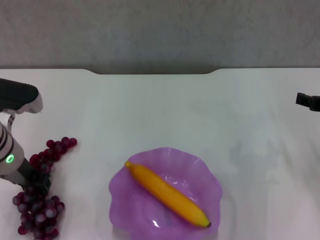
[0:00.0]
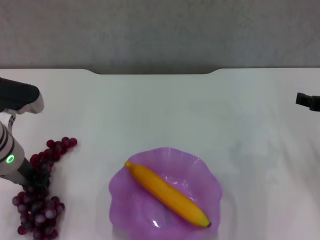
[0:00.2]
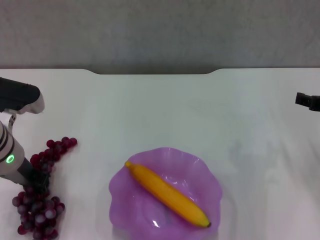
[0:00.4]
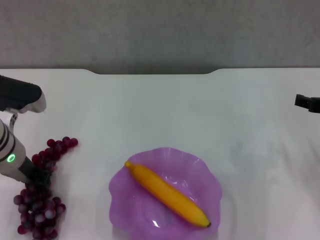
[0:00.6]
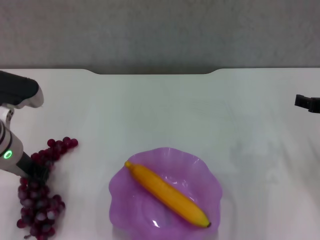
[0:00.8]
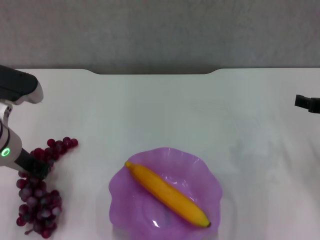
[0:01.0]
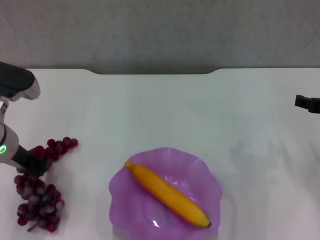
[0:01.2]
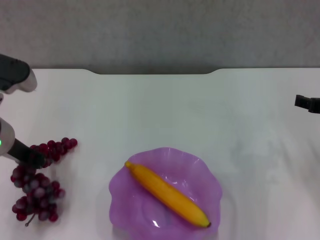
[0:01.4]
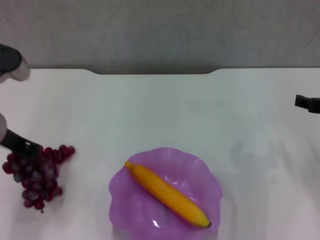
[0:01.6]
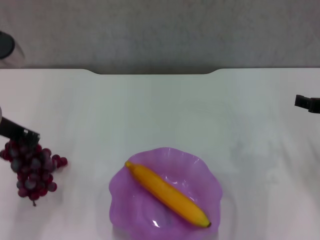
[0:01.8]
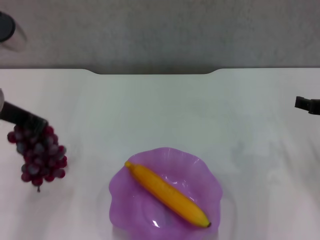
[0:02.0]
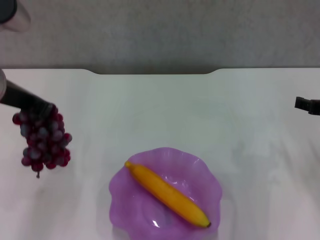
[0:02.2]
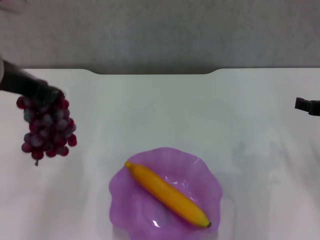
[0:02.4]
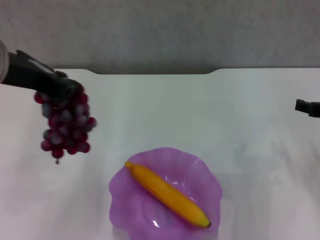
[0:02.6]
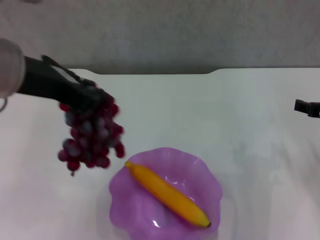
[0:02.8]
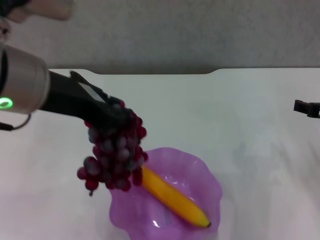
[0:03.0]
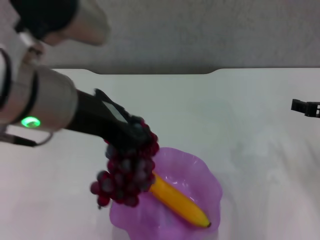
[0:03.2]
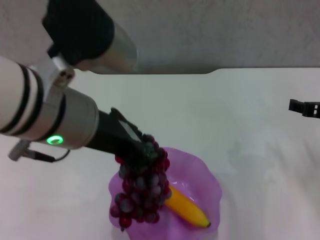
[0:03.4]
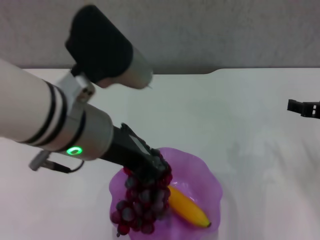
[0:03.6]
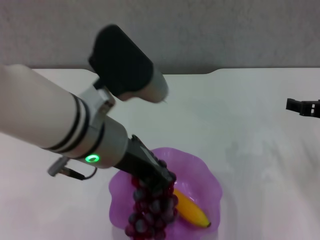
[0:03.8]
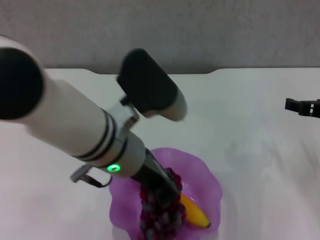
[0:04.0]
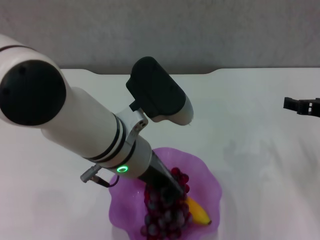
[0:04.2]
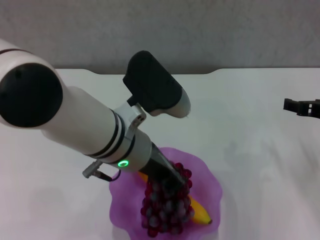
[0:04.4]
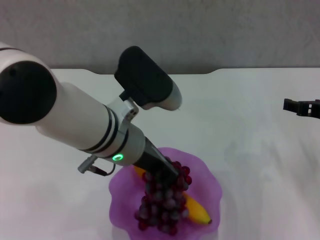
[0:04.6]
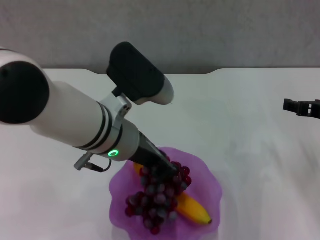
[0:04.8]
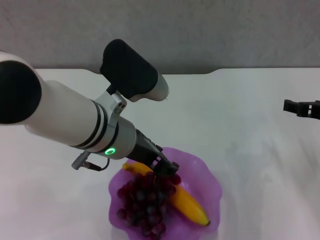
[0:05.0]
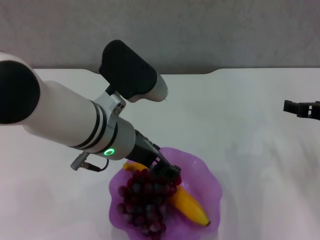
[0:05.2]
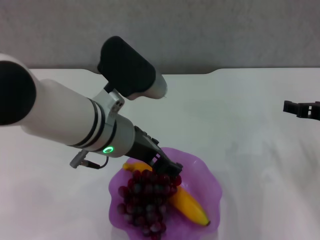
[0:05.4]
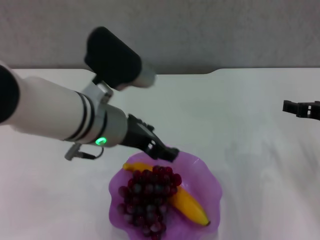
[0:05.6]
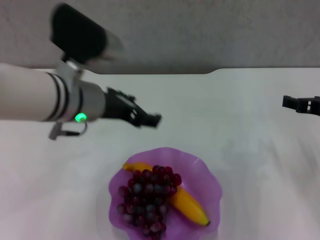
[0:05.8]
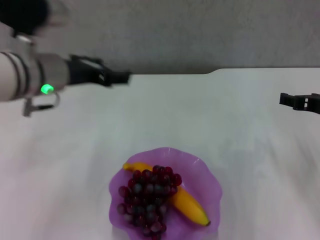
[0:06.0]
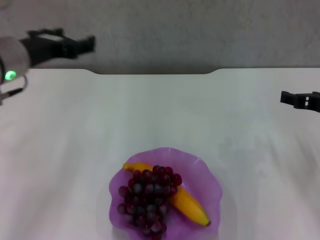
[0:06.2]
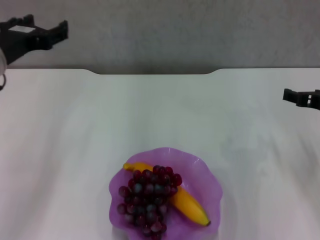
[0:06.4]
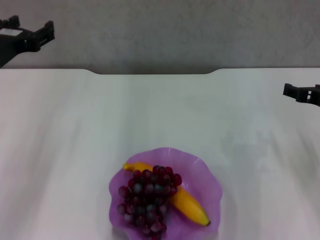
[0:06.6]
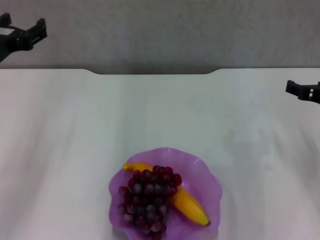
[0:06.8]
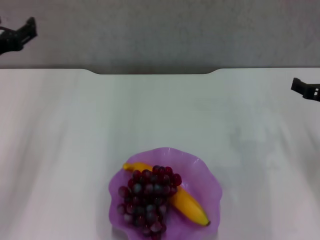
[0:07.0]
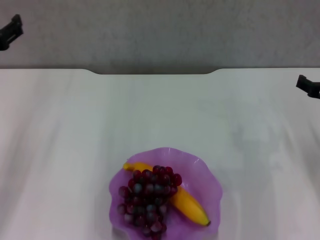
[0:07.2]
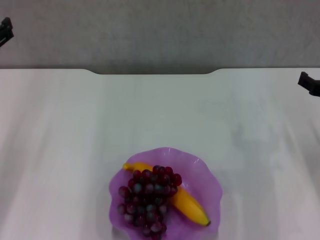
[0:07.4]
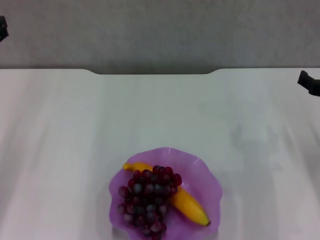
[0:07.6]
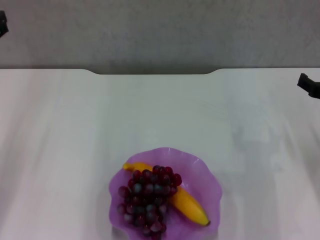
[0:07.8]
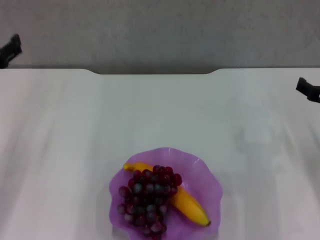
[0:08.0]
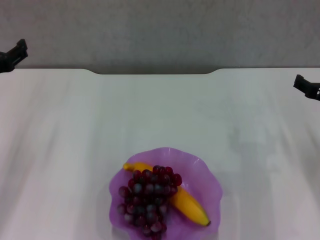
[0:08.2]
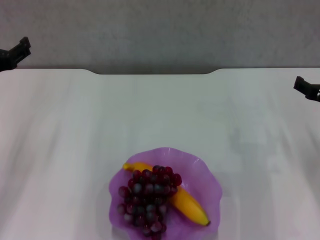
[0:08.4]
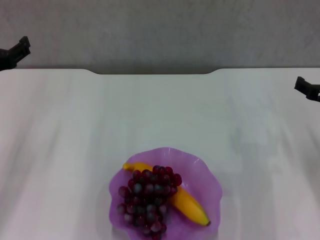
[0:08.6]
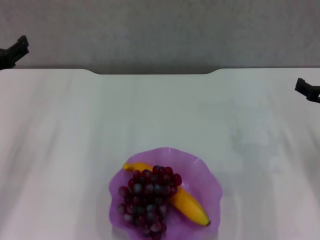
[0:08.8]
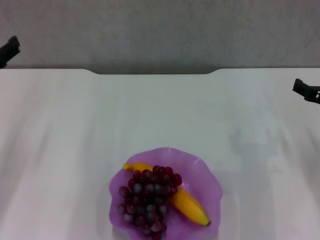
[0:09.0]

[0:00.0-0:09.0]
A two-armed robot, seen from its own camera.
Step, 0:00.2 to 0:05.0: Place the grape in the purple plate with left gripper.
0:00.0 to 0:01.6: The left gripper travels upward by about 5 cm, and closes.
0:01.6 to 0:03.0: The left gripper travels upward, to the right and backward by roughly 15 cm.
0:03.0 to 0:04.4: The left gripper goes some 15 cm downward and to the right.
0:04.4 to 0:06.0: The left gripper heads to the left and forward, covering roughly 15 cm, and opens up.
0:06.0 to 0:07.6: The left gripper shifts approximately 15 cm to the left.
0:07.6 to 0:09.0: The grippers make only small movements.

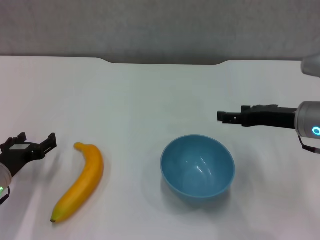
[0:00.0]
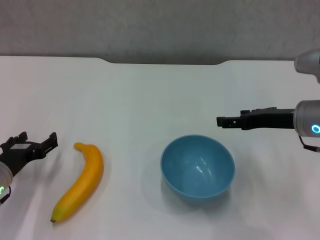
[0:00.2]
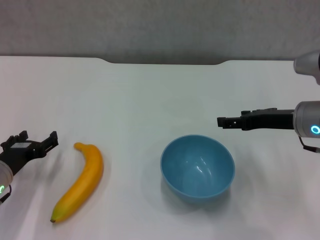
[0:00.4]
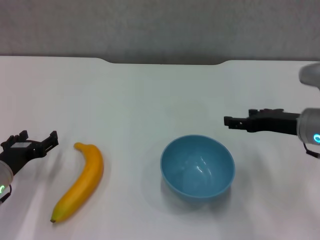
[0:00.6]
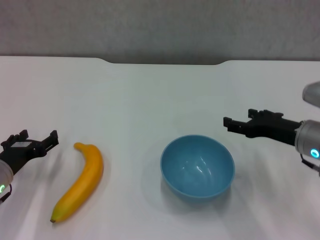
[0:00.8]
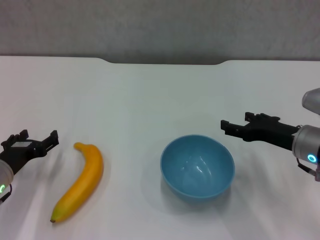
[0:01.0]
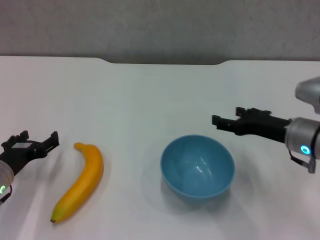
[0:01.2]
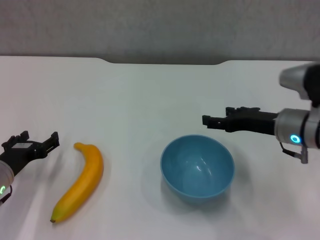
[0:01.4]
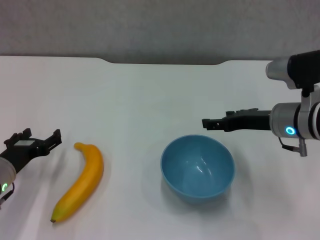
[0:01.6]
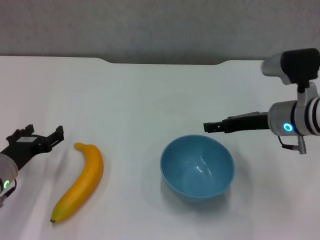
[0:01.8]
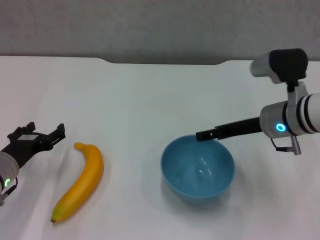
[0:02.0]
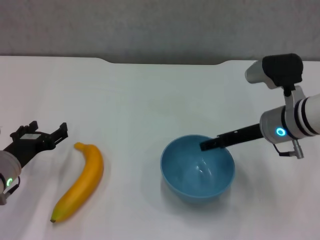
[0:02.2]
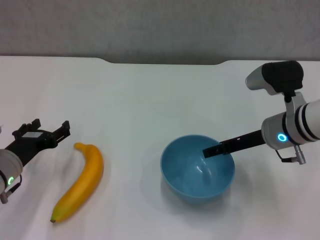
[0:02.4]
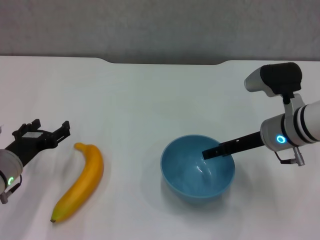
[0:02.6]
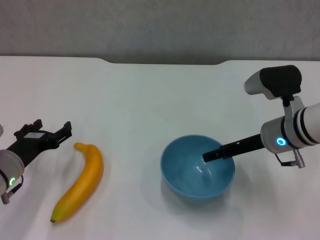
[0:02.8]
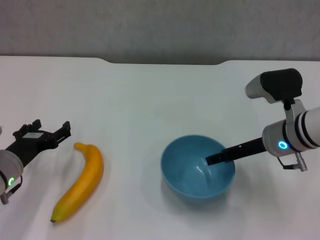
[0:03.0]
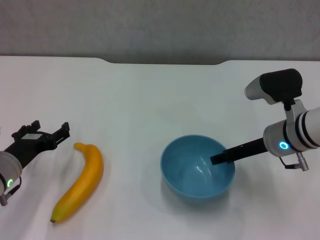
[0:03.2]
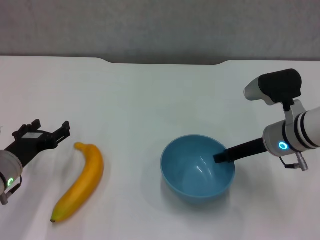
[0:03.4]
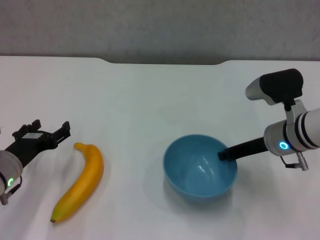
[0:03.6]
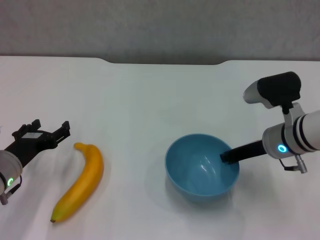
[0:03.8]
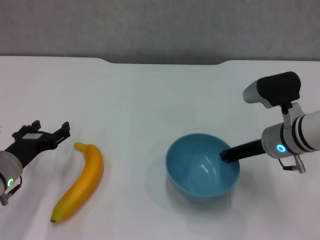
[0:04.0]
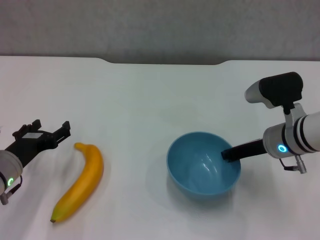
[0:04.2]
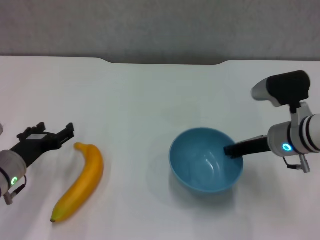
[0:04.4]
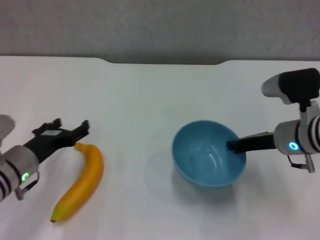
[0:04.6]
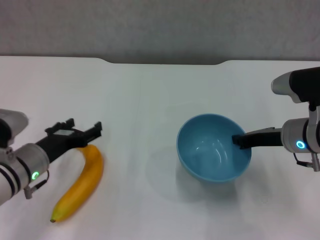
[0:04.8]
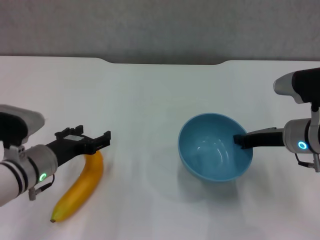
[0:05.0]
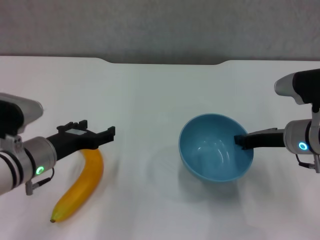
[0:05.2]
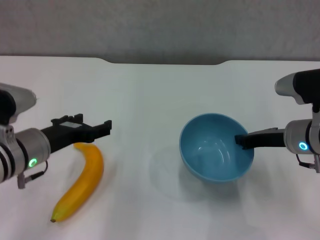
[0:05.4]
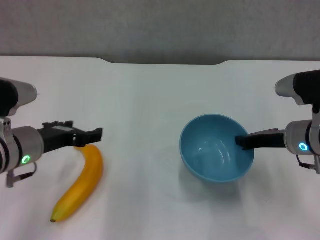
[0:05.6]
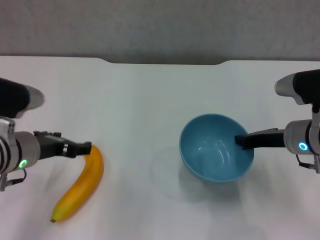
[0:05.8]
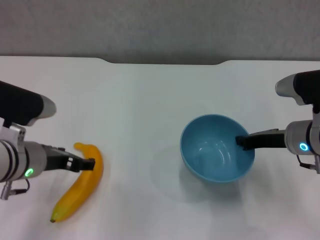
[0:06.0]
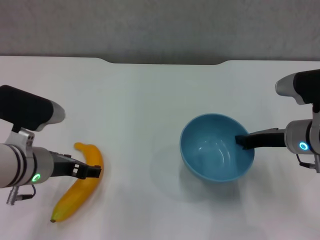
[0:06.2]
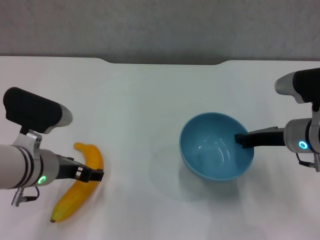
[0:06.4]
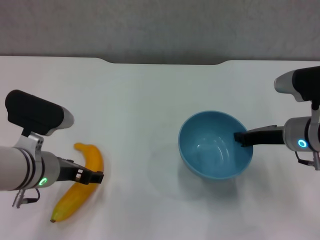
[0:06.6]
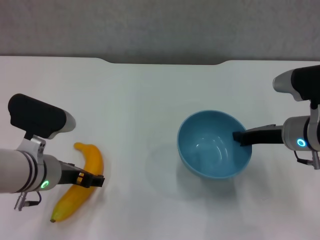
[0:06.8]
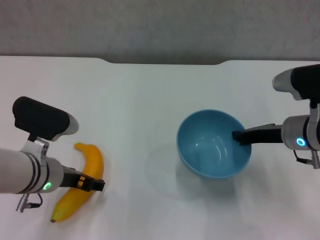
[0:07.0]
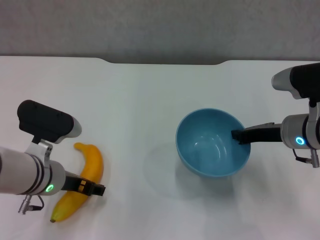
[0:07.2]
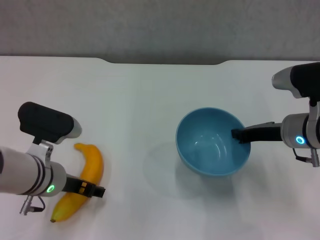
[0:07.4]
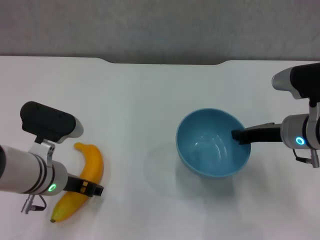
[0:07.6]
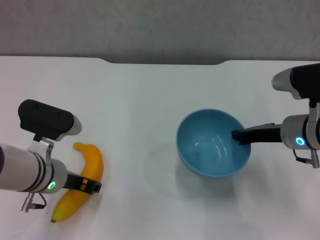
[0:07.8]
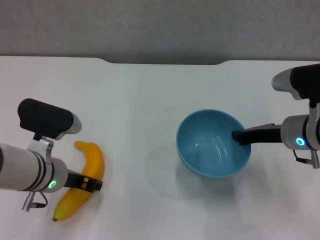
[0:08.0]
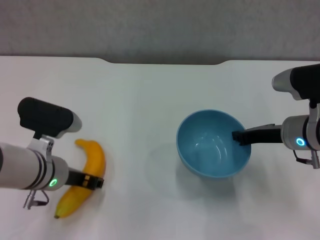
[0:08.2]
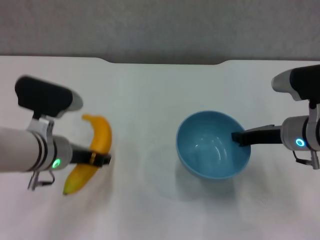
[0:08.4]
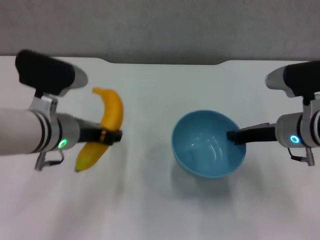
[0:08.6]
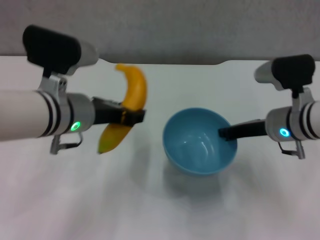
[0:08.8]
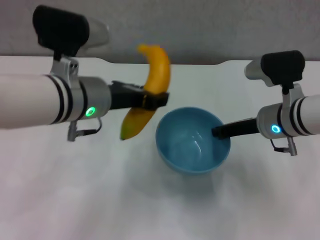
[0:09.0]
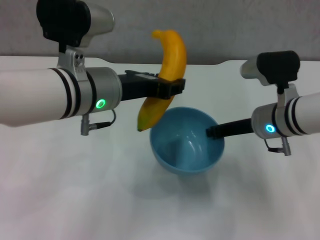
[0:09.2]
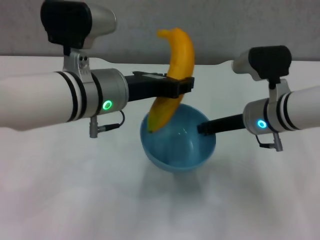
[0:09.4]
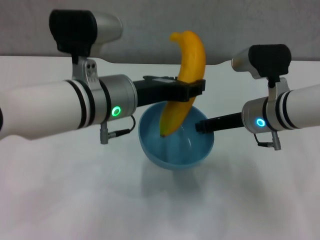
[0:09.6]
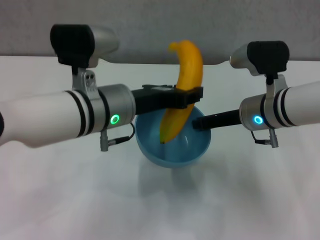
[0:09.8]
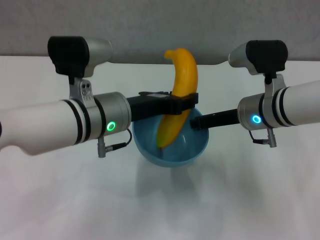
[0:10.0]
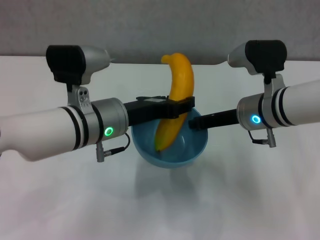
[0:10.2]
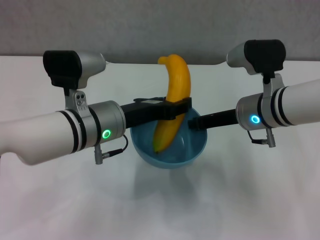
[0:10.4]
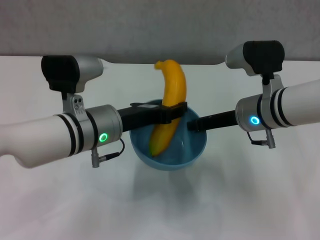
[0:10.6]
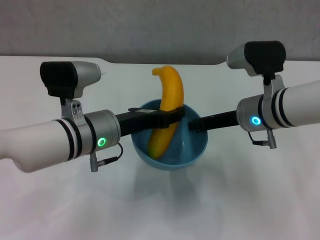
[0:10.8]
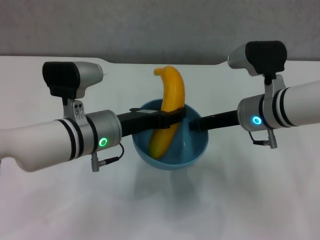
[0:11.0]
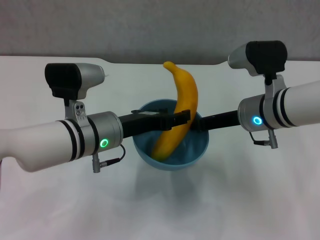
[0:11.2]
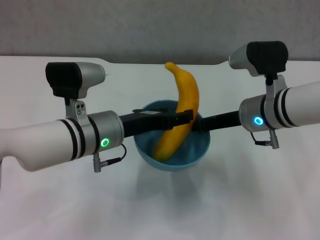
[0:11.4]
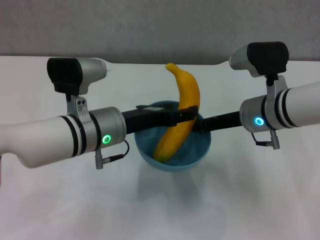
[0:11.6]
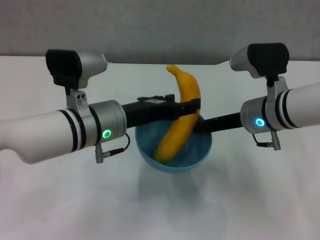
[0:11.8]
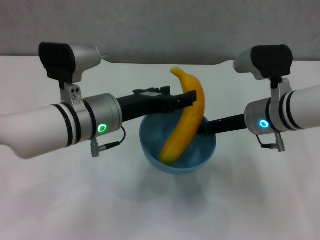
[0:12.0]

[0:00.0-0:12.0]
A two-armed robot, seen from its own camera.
Step, 0:00.0 to 0:03.8: Grasp the blue bowl with right gripper.
Step, 0:04.0 to 0:04.8: Lift the blue bowl with right gripper.
Step, 0:05.0 to 0:07.8: Grasp the banana with left gripper.
Step, 0:08.0 to 0:12.0: Place the banana in the blue bowl with left gripper.
0:00.0 to 0:01.6: The grippers move only a little.
0:01.6 to 0:03.0: There are only small adjustments of the grippers.
0:03.0 to 0:04.4: The right gripper closes its fingers.
0:04.4 to 0:06.0: The left gripper shifts some 10 cm upward and to the right.
0:06.0 to 0:07.6: The grippers make only small movements.
0:07.6 to 0:09.0: The left gripper is displaced upward and to the right by approximately 15 cm, and closes.
0:09.0 to 0:10.4: The left gripper moves downward, roughly 5 cm.
0:10.4 to 0:12.0: The left gripper opens up.

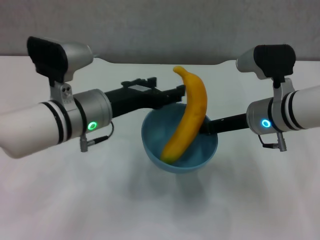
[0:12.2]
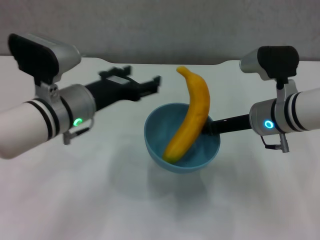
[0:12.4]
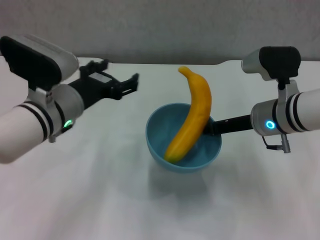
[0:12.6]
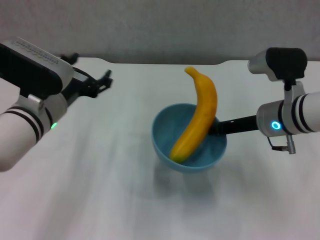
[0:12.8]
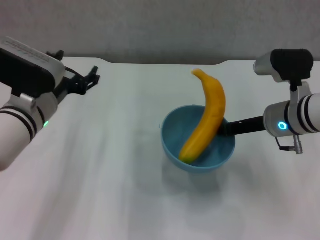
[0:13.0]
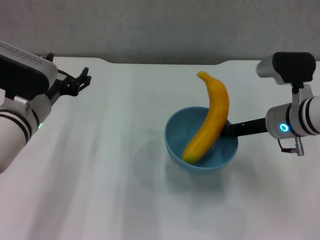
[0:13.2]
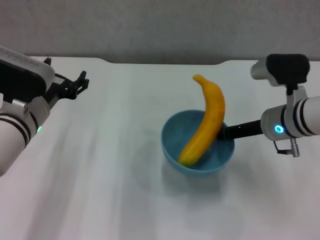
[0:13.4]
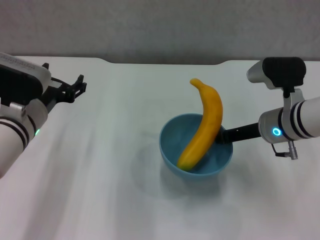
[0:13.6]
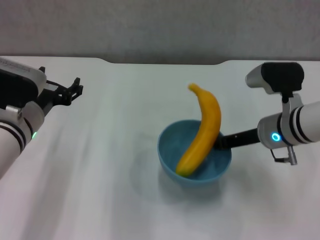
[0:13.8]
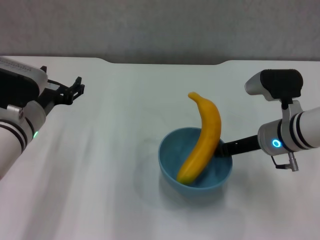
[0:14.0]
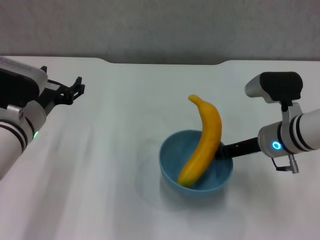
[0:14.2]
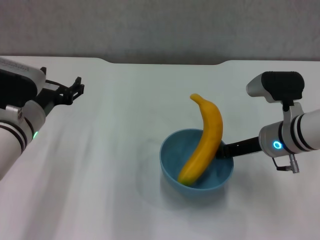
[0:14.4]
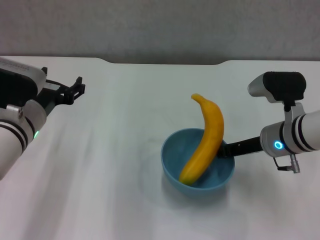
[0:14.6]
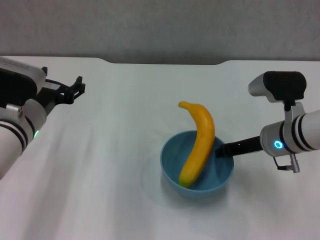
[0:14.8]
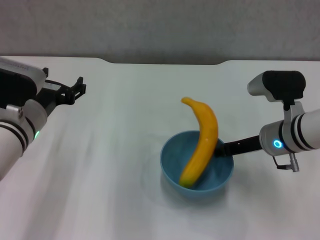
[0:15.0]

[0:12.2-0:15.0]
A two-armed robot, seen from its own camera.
0:12.2 to 0:13.6: The left gripper is displaced to the left by some 5 cm.
0:13.6 to 0:15.0: The grippers stay close to where they were, moving slightly.
